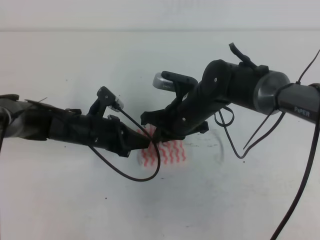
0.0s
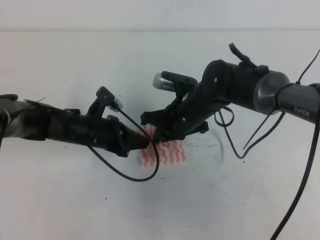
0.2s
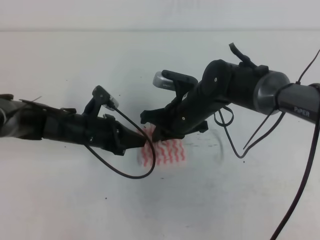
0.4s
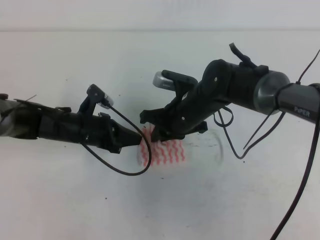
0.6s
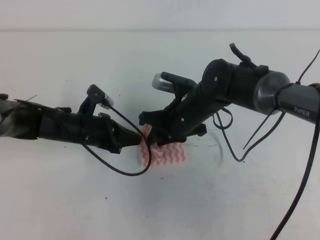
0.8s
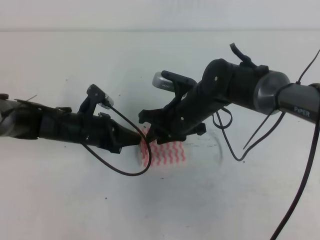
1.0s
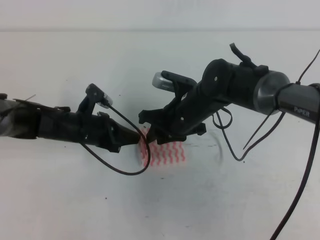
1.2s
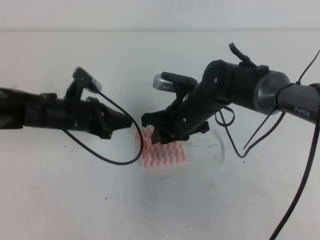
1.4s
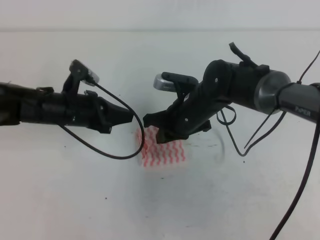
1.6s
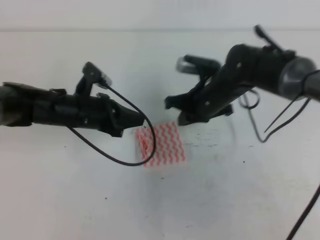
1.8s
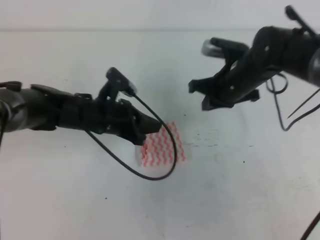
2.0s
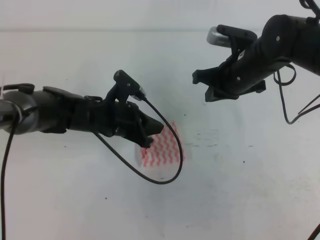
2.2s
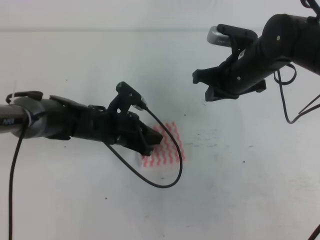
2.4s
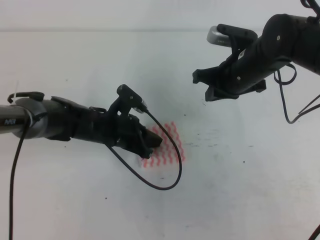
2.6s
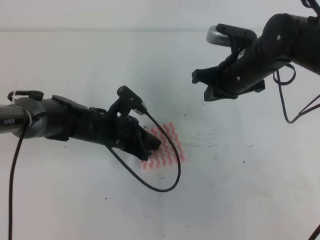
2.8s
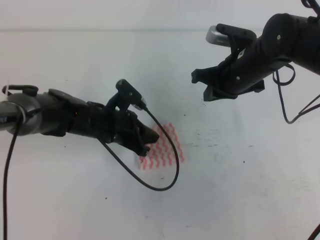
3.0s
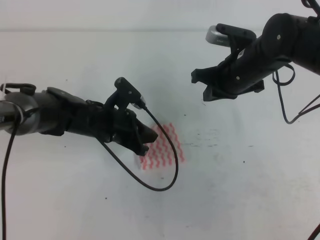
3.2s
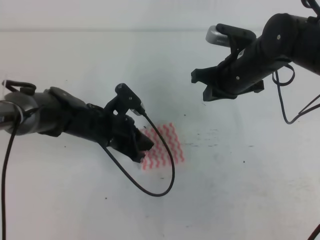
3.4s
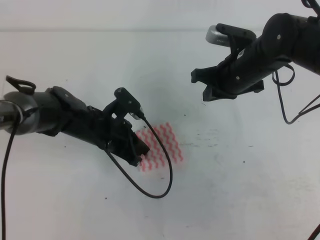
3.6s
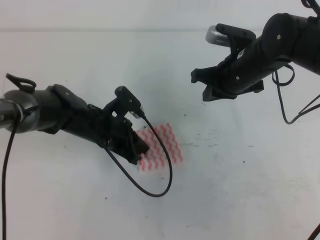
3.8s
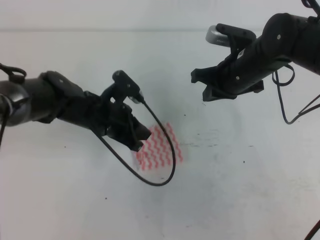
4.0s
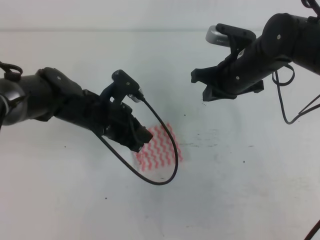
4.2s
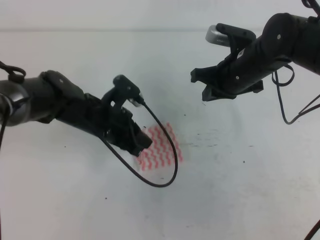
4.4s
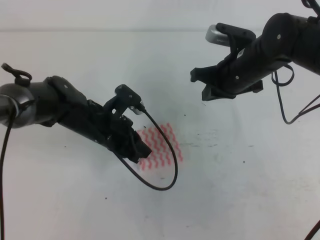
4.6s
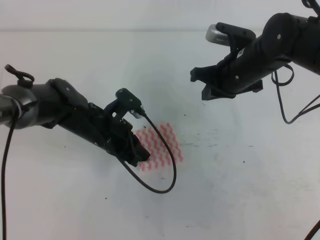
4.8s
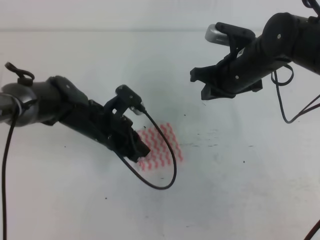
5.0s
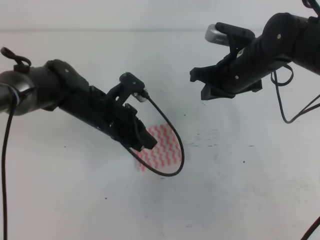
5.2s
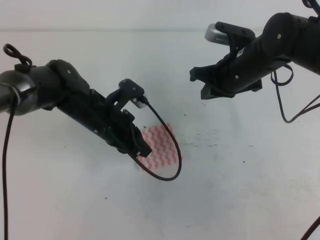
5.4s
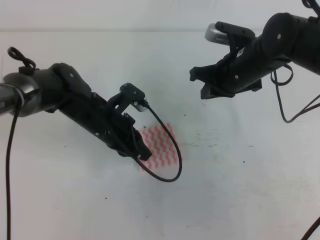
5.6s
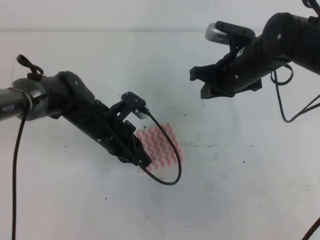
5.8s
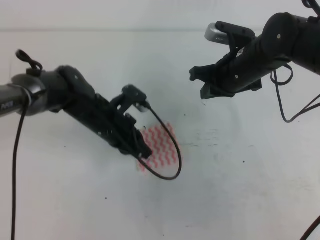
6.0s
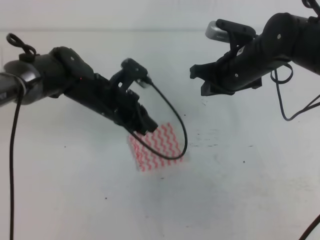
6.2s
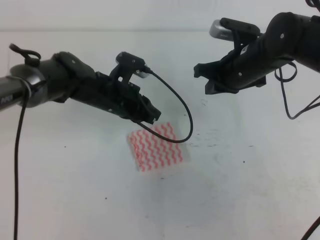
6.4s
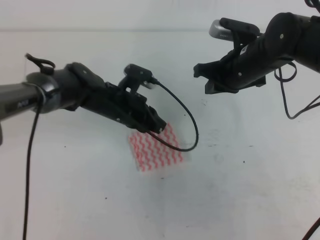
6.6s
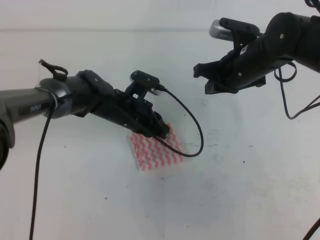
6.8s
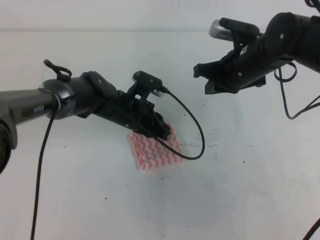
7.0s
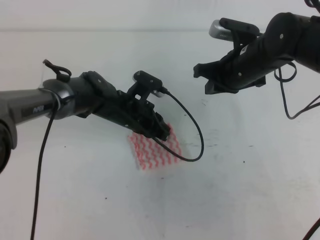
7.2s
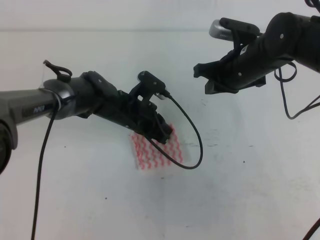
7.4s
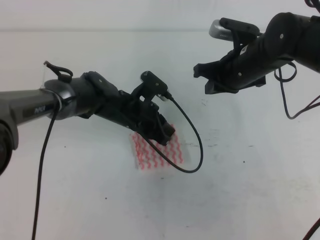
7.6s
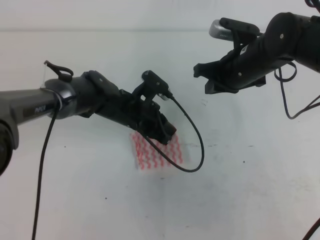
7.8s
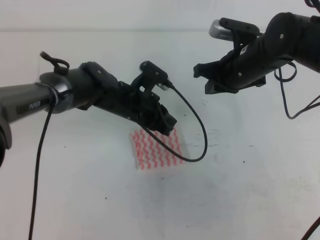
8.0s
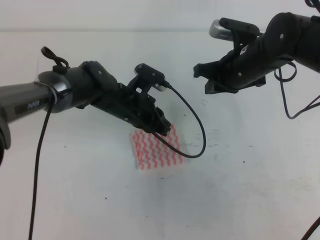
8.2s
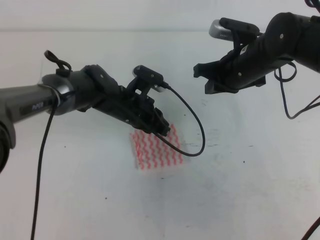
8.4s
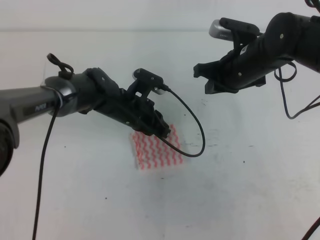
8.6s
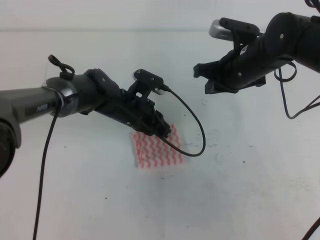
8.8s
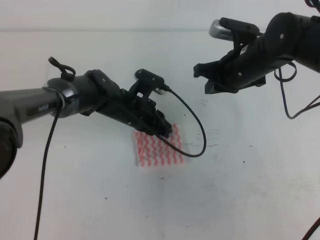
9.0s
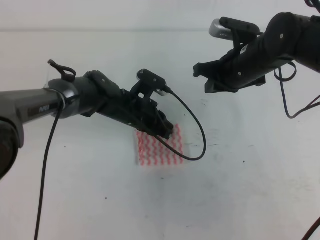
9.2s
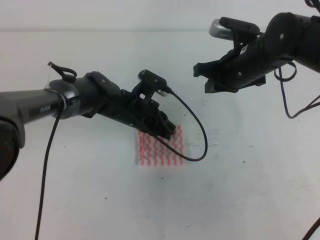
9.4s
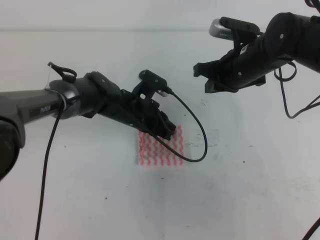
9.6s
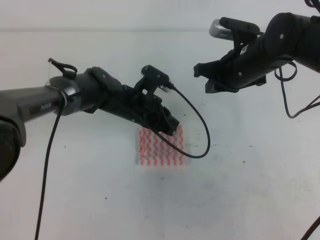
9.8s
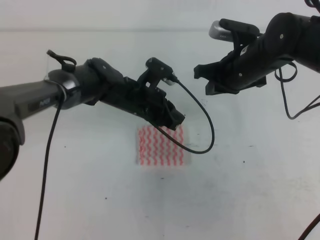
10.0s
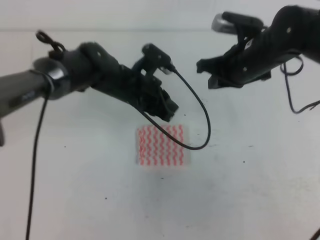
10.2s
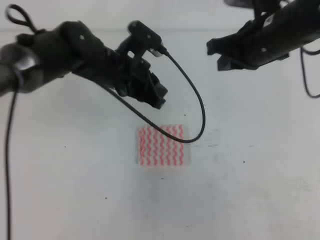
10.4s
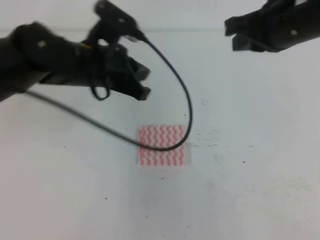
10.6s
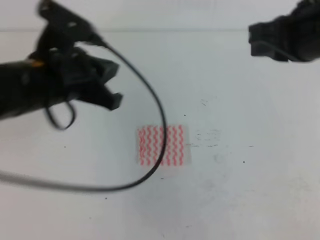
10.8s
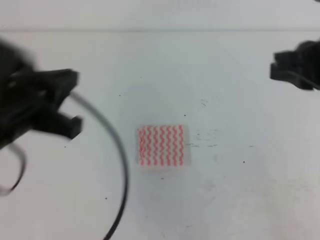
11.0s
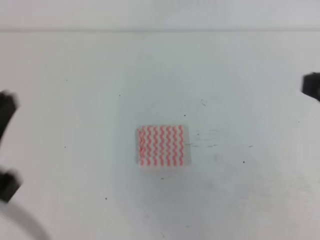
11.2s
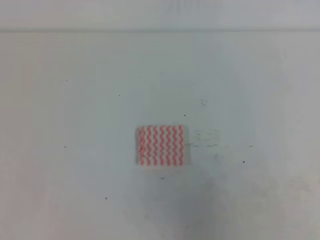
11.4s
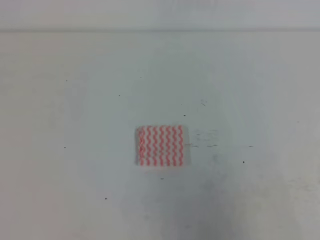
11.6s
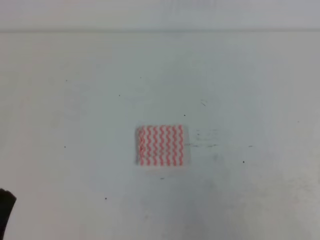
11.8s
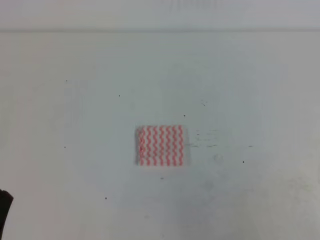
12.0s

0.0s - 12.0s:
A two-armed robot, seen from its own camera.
0.0s - 1.6s: The right gripper opens and closes again, while the left gripper is displaced upward by some 5 cm.
1.6s - 3.0s: The left gripper travels to the right by some 5 cm. Meanwhile the right gripper moves to the right and upward, about 10 cm.
3.0s - 4.4s: There are only small adjustments of the grippers.
4.4s - 6.0s: The grippers make only small movements.
6.0s - 7.6s: The left gripper ends up some 5 cm from where it was.
7.6s - 9.0s: The grippers stay close to where they were, moving slightly.
9.0s - 10.4s: The right gripper travels upward by some 5 cm. The left gripper goes some 10 cm upward.
10.4s - 12.0s: The left gripper heads backward and to the left, covering roughly 35 cm; the right gripper is displaced backward and to the right by approximately 35 cm.

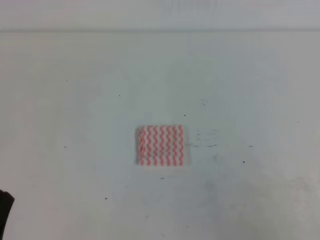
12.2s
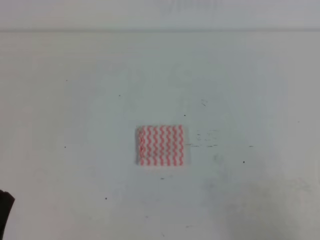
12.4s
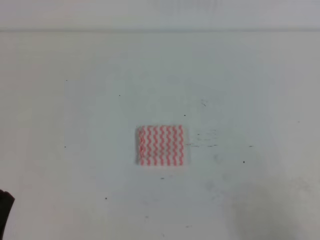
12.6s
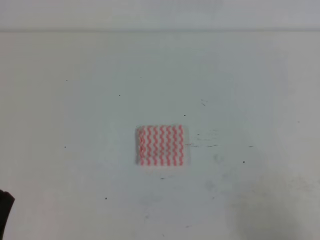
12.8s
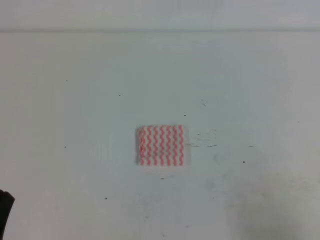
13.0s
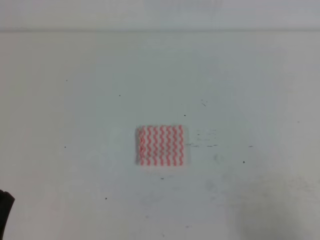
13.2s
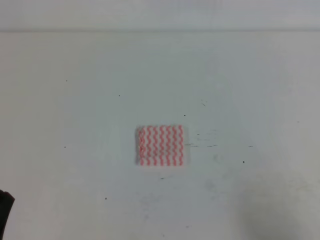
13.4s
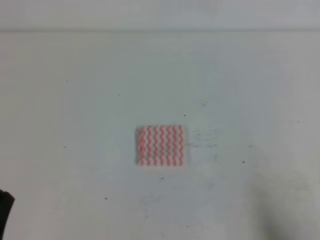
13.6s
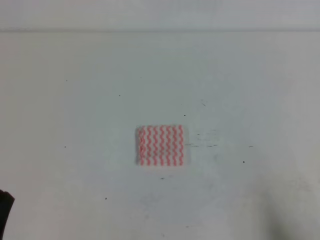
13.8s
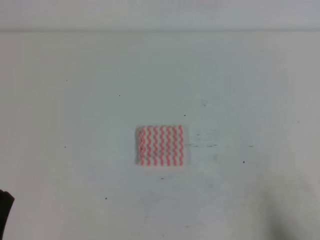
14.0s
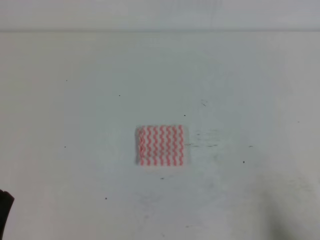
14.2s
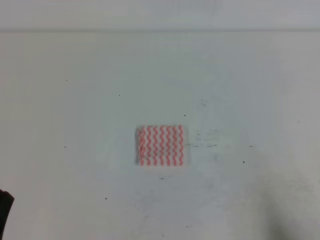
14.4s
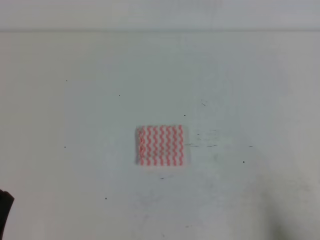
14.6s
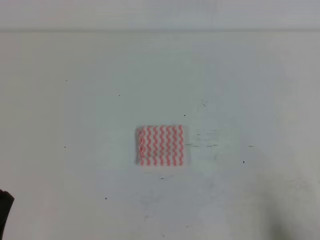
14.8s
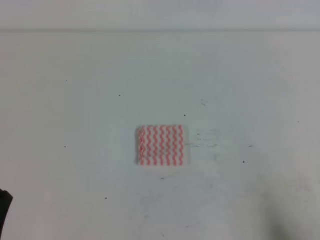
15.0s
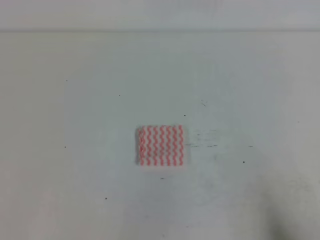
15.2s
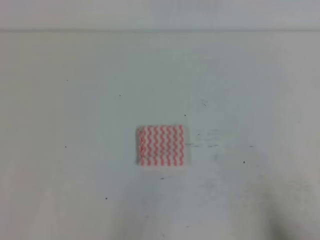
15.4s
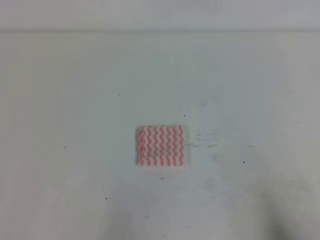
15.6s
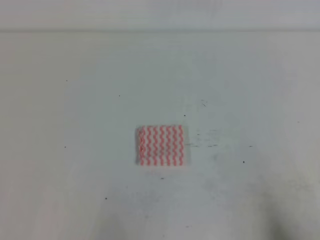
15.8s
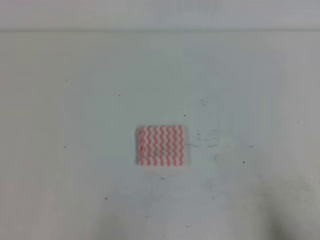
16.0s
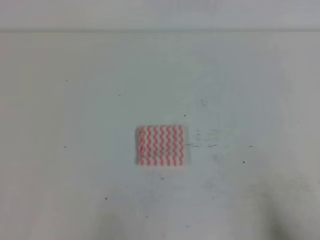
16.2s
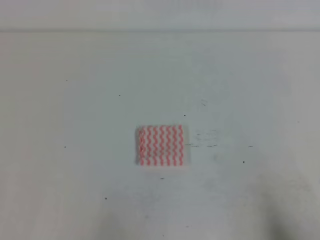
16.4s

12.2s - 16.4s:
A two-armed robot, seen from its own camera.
12.2s - 13.6s: The right gripper shifts approximately 10 cm downward.
